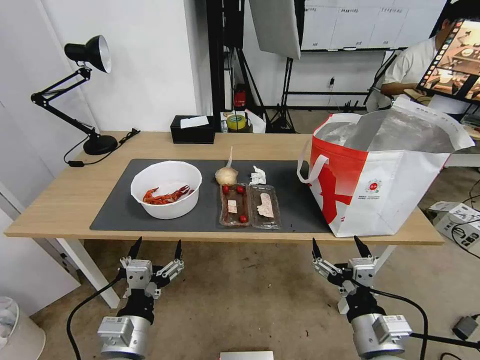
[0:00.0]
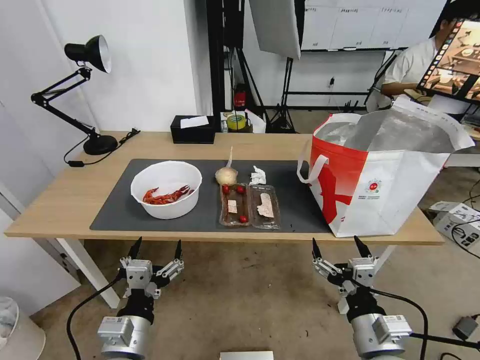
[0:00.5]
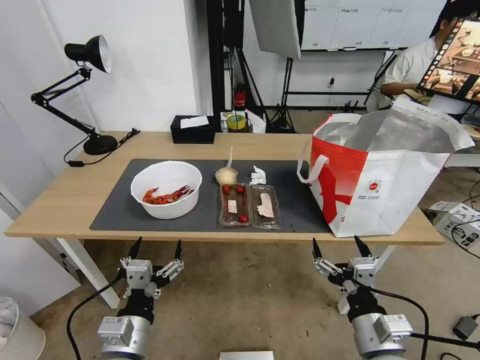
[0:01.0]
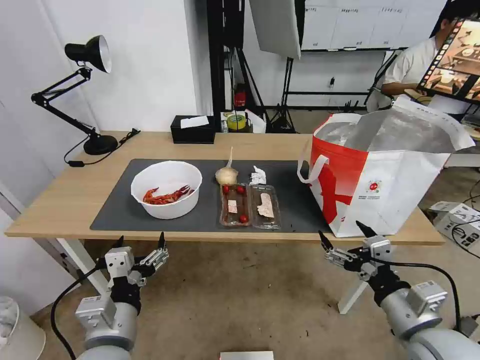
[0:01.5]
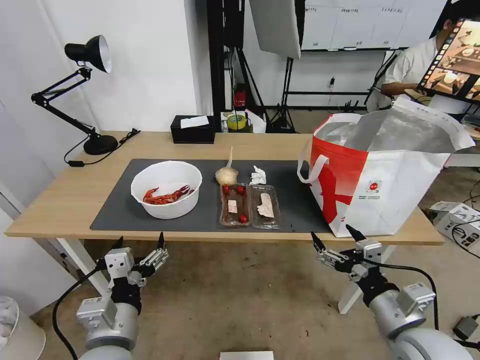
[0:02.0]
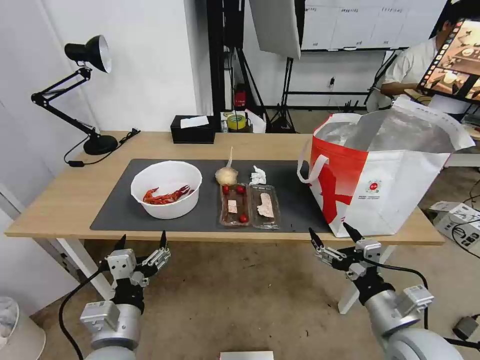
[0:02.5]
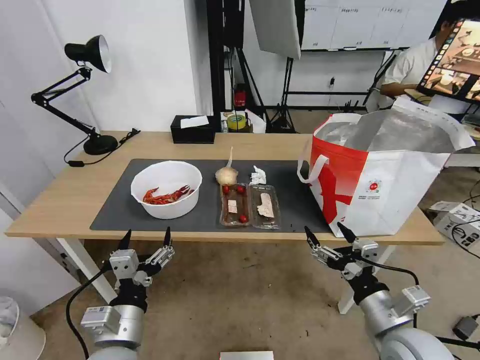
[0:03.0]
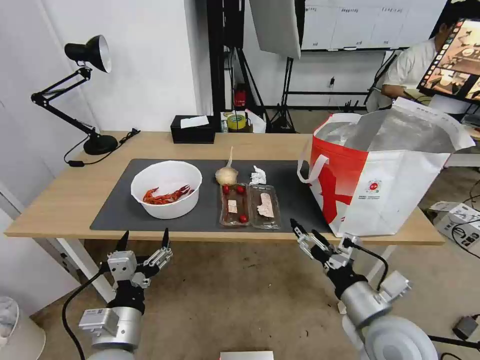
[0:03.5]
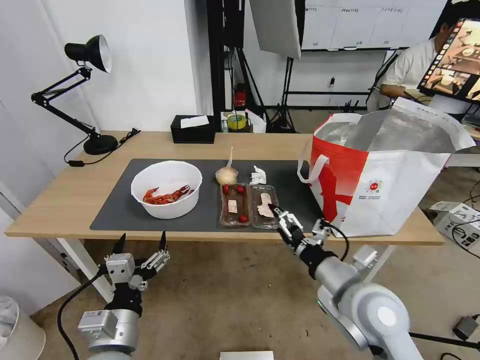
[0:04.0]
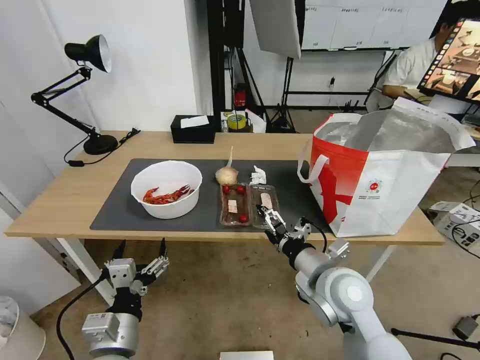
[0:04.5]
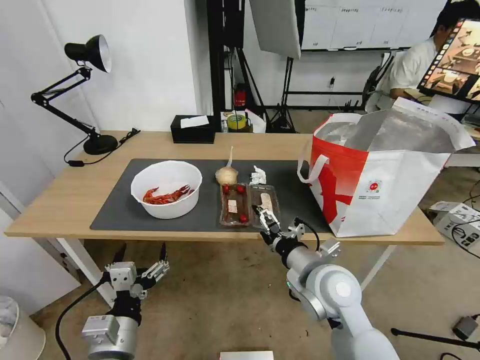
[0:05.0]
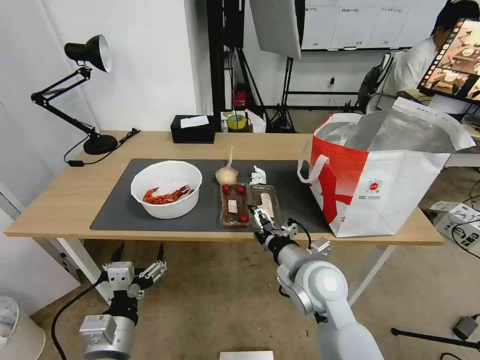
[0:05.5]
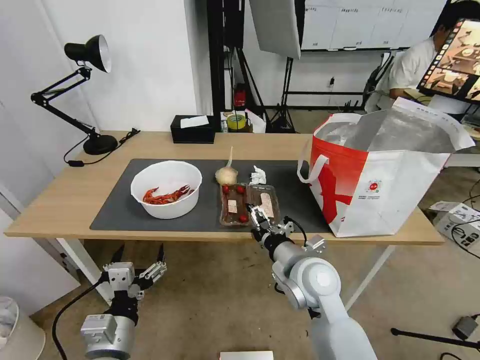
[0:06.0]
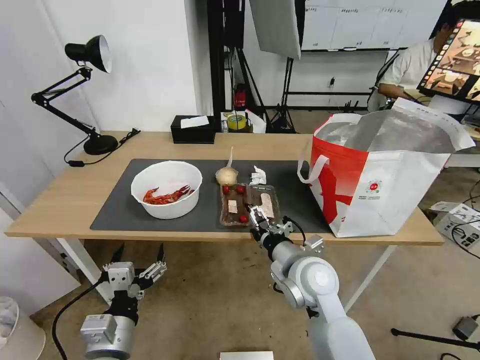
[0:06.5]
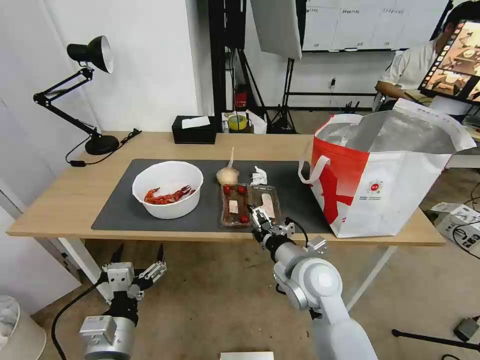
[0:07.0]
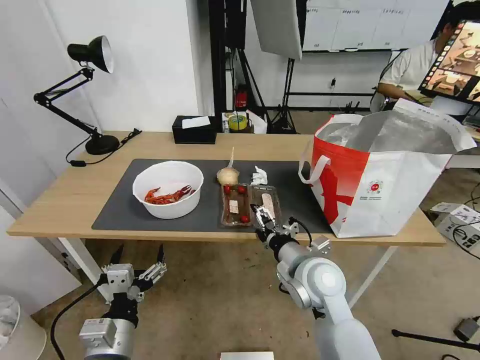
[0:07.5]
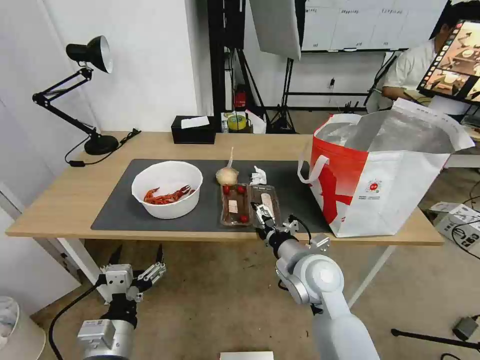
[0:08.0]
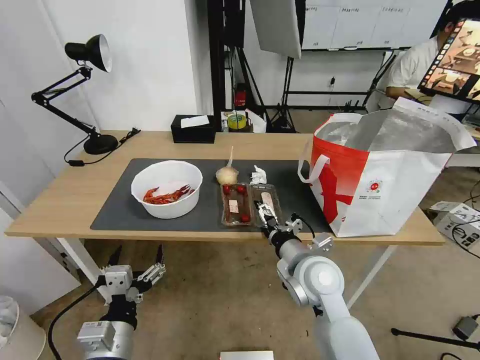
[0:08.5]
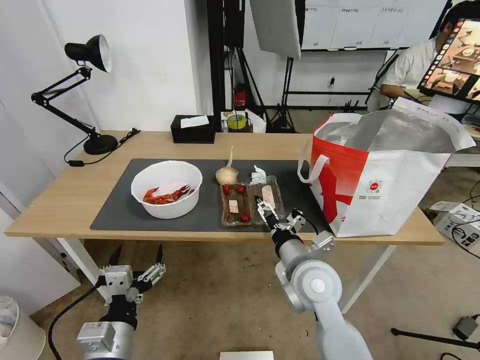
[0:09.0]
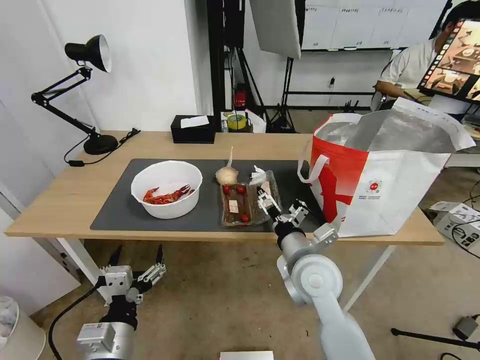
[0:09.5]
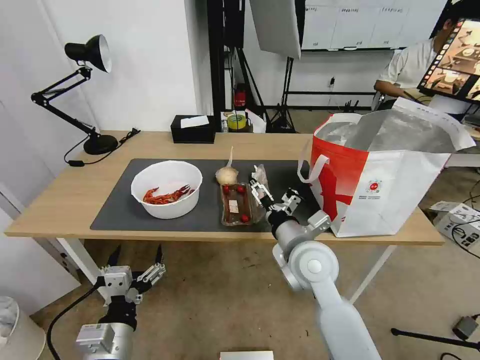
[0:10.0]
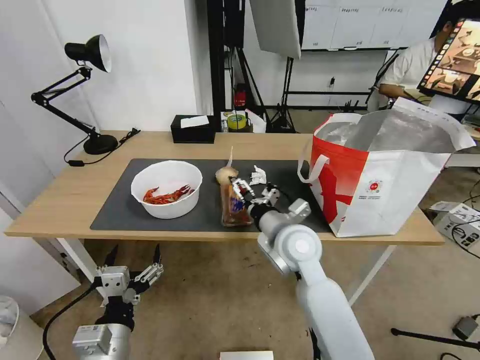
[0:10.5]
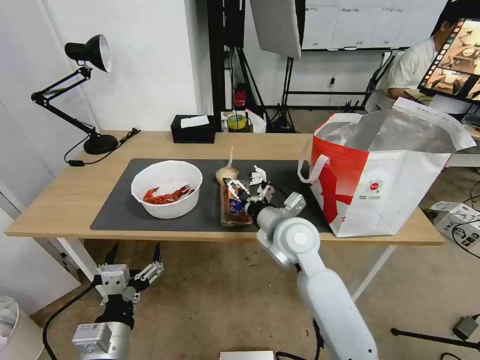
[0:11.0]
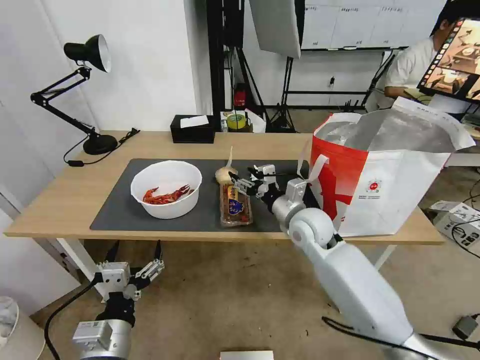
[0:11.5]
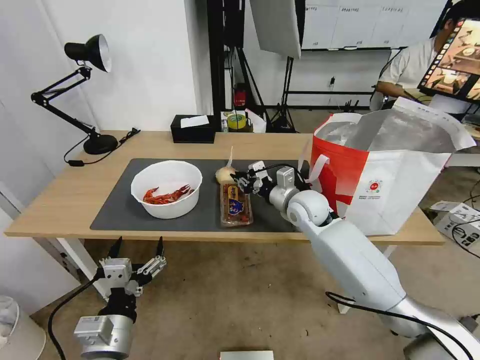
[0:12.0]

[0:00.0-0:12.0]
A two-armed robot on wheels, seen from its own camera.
Task of the whole recording: Pick up the trash from the table and place it into the takeout bag.
2.0 to 4.0 s: The right gripper heads to the left and forward, covering approximately 10 cm.
4.0 to 6.0 s: The right gripper is displaced to the left and forward by approximately 10 cm.
6.0 to 8.0 s: The two grippers keep their place.
10.0 to 12.0 s: The right gripper moves forward, approximately 15 cm, and closes its fingers.

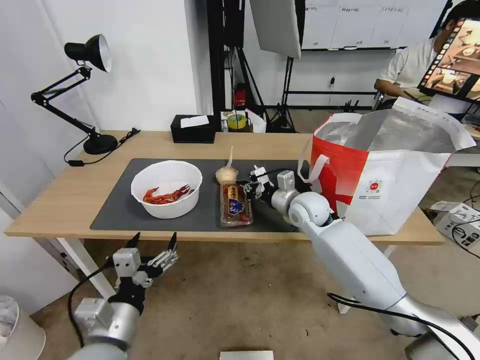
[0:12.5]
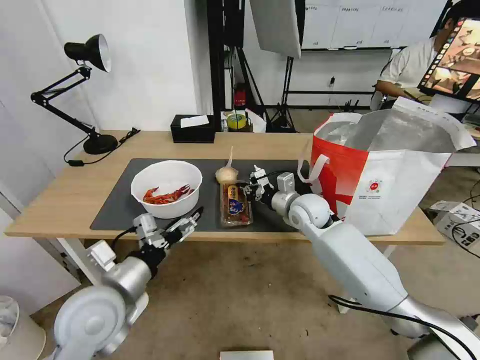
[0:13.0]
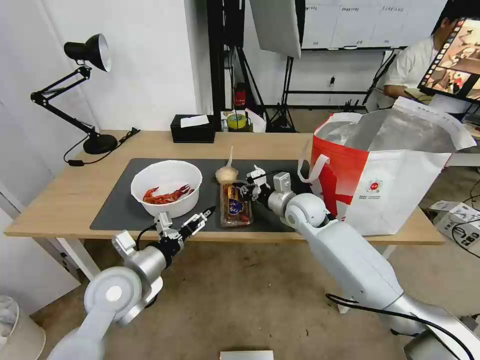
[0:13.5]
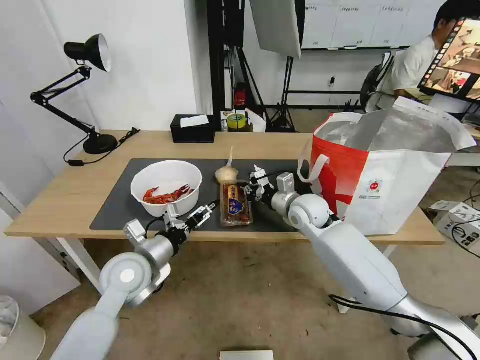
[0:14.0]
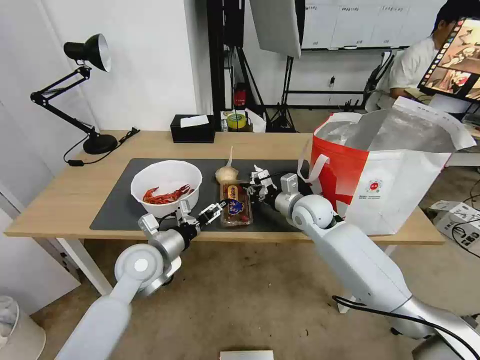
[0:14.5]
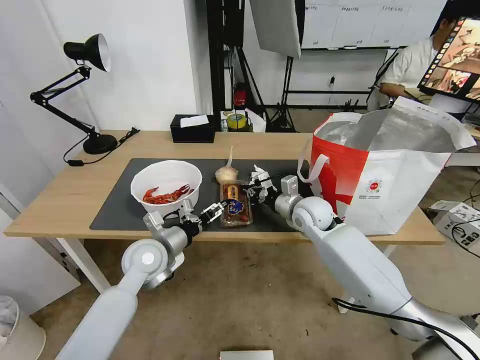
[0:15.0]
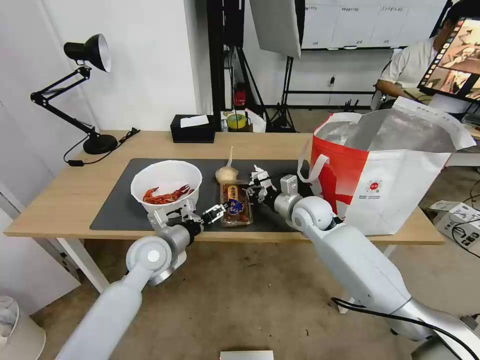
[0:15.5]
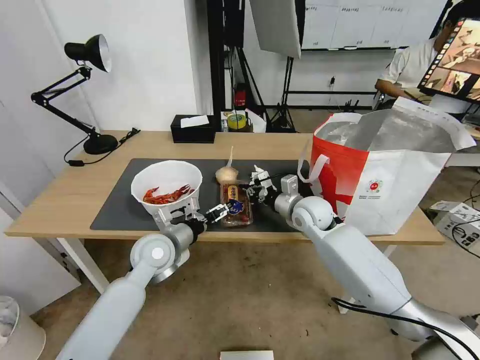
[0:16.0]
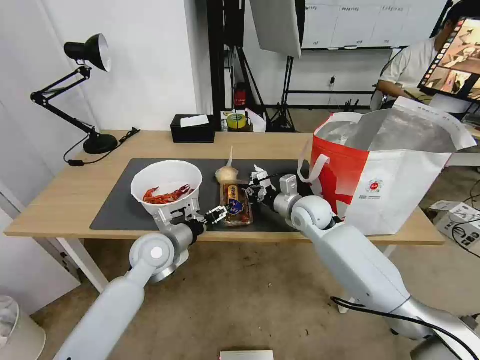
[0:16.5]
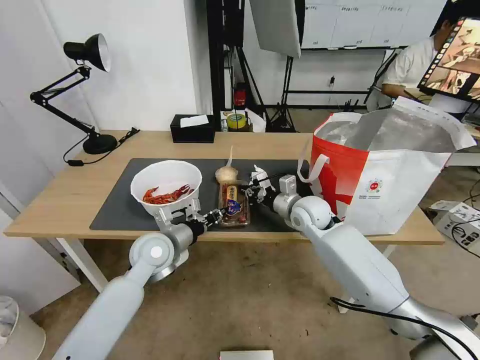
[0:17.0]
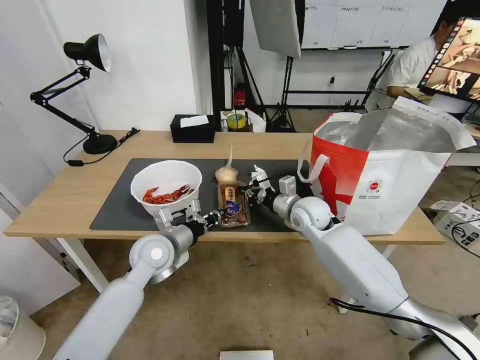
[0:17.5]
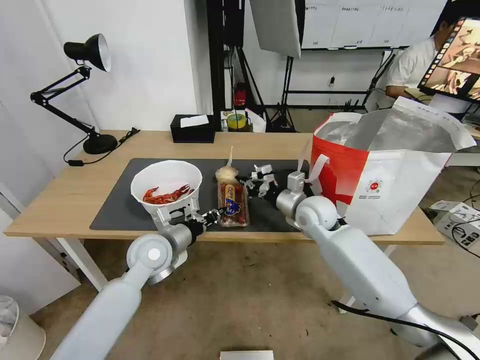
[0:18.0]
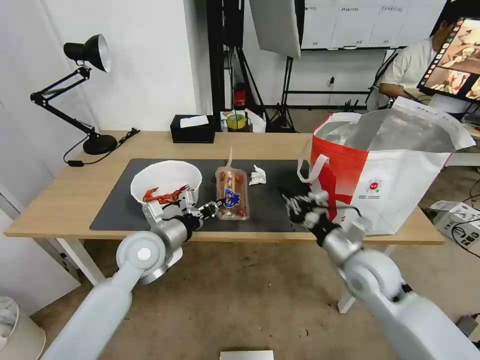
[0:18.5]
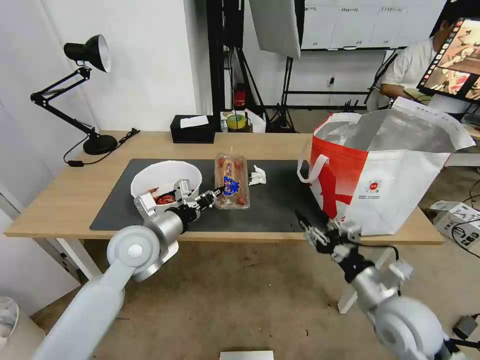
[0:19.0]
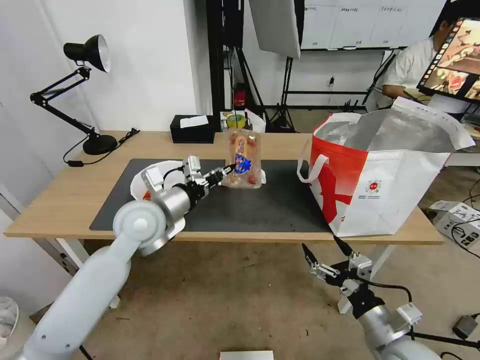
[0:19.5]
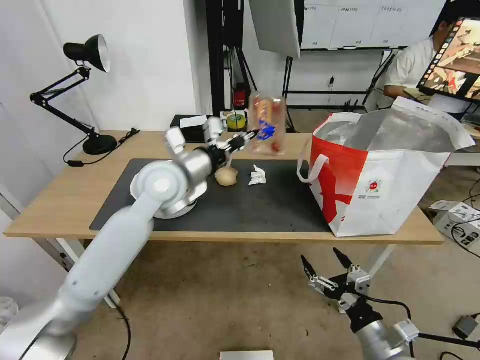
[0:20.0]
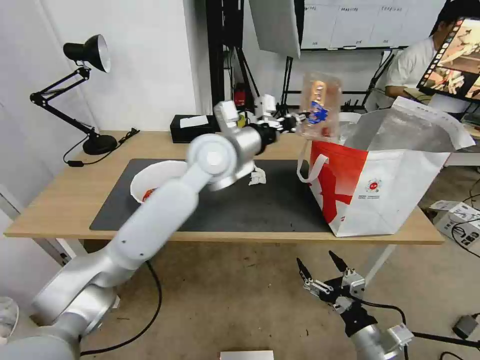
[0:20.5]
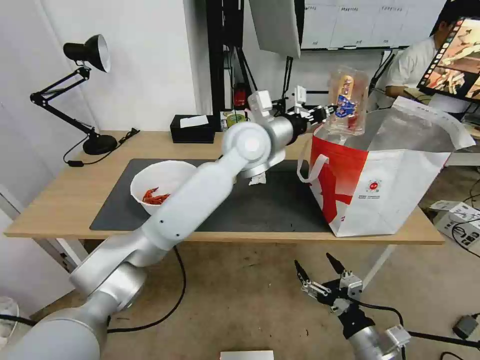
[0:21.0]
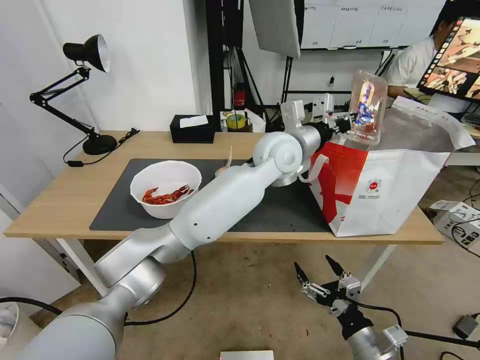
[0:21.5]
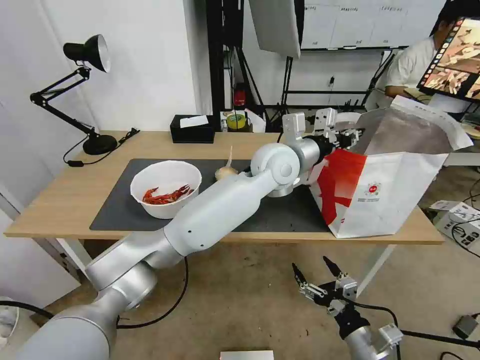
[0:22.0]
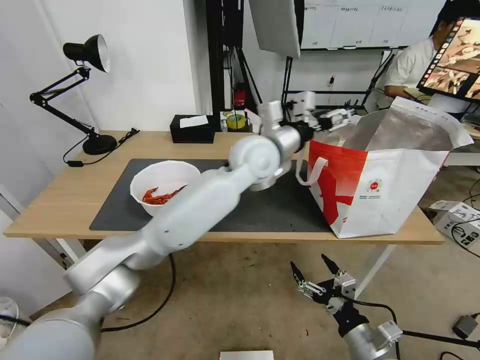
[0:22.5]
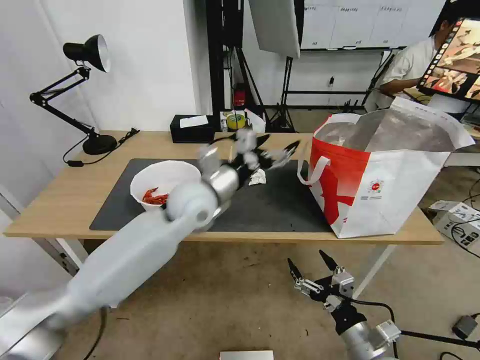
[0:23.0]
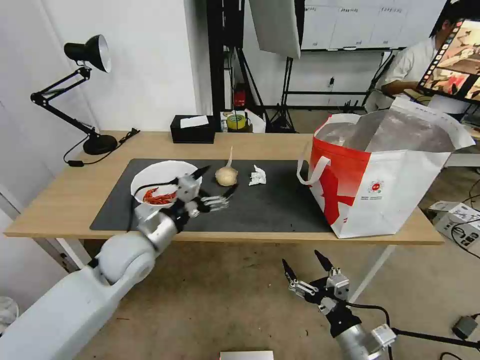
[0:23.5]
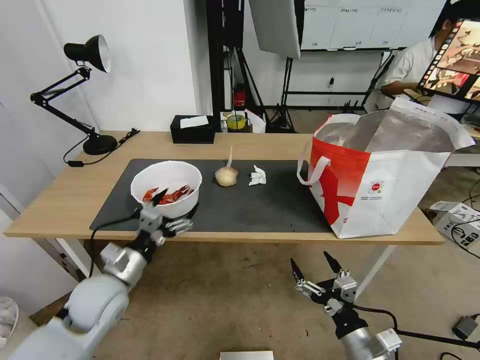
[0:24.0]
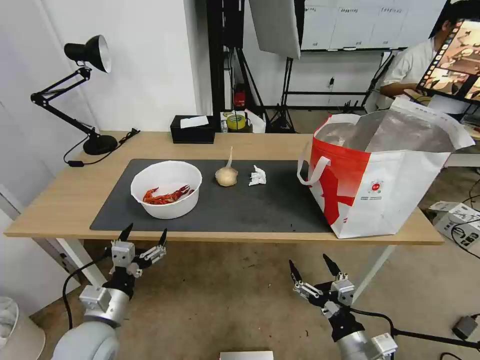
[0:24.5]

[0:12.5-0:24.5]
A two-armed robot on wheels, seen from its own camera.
Task of the whole recording: Pick up the trash from the table and place it into the takeout bag.
12.5 to 14.5 s: The left gripper shifts approximately 20 cm forward.
14.5 to 16.5 s: The grippers move only a little.
16.5 to 18.5 s: The right gripper heads backward and to the right, covering about 15 cm. Meanwhile the left gripper closes its fingers.
18.5 to 20.5 s: The left gripper is displaced upward, to the right and forward by about 25 cm. Meanwhile the right gripper goes about 25 cm backward and downward, and opens.
20.5 to 22.5 s: The left gripper heads to the right, covering some 10 cm, and opens.
22.5 to 24.5 s: The left gripper shifts roughly 50 cm to the left, backward and downward.

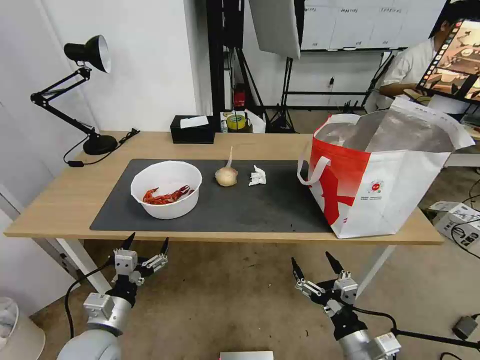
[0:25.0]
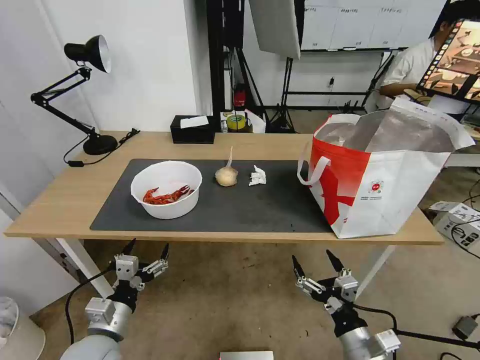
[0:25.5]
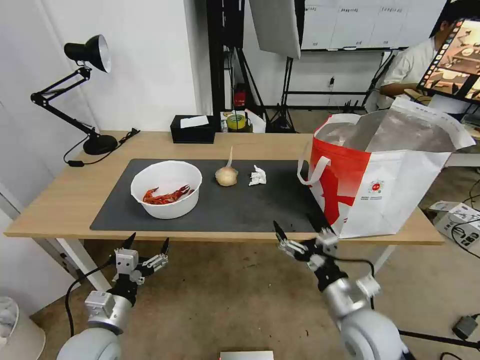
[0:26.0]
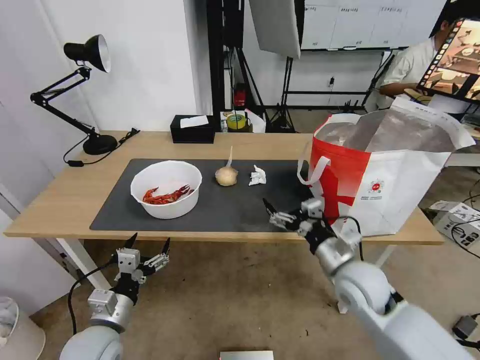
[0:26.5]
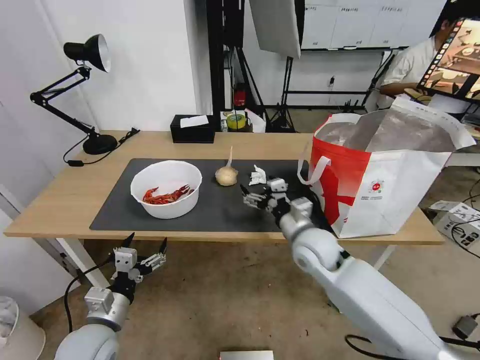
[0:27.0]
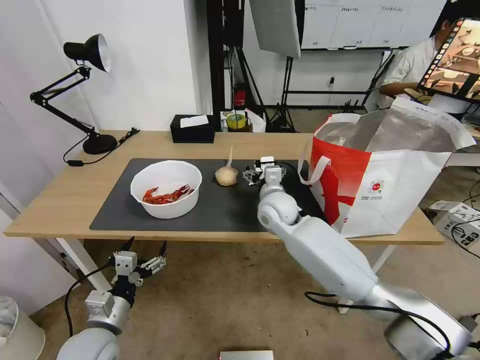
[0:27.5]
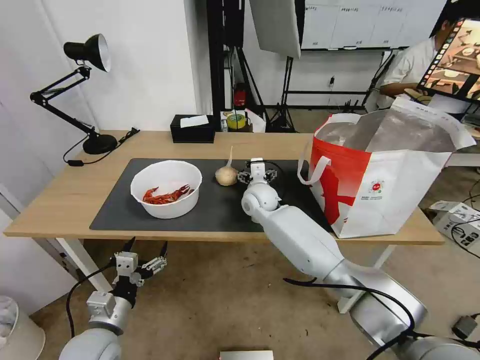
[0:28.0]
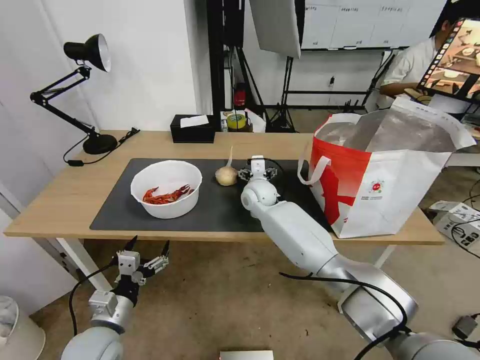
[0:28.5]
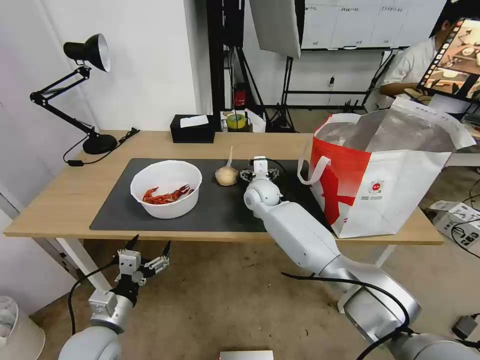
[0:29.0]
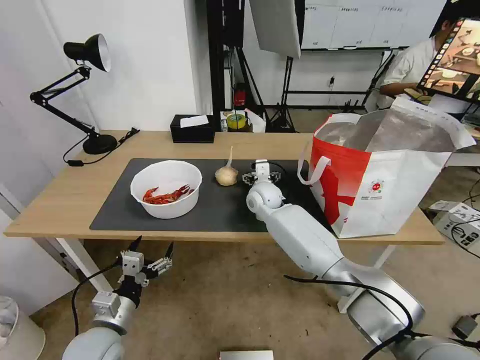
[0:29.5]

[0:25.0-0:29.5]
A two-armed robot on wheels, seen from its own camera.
Task of the whole recording: Pick up the trash from the table and place it into the takeout bag.
25.0 to 27.0 s: The right gripper goes some 25 cm forward.
27.0 to 29.5 s: The right gripper heads forward and to the left, covering approximately 20 cm.
